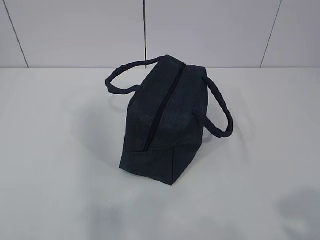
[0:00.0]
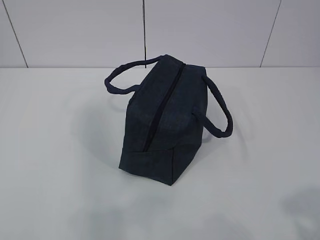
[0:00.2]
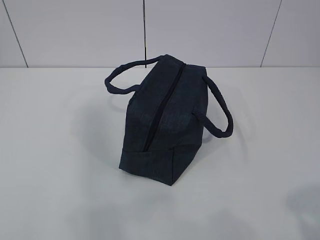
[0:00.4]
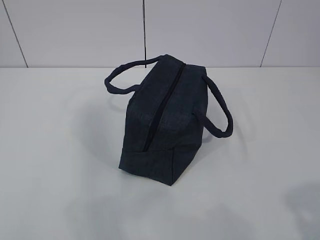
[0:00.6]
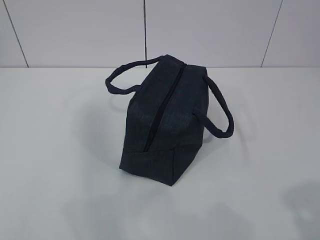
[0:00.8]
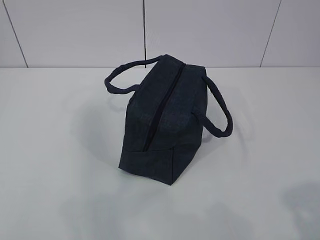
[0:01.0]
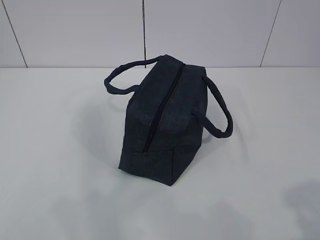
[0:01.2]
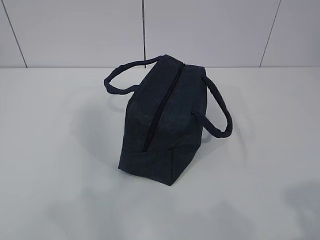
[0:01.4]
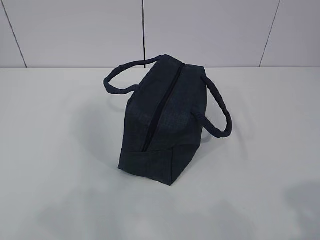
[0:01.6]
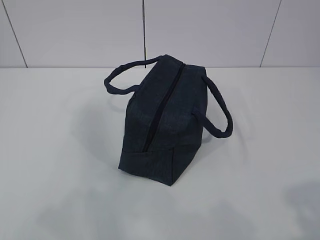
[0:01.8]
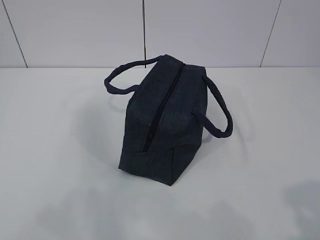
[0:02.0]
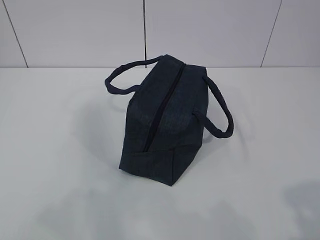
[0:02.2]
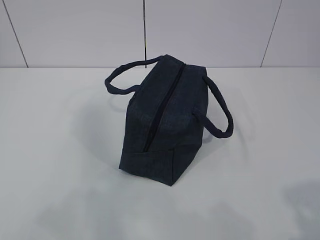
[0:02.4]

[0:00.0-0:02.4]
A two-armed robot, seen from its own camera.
0.0 to 1.2 s: The left gripper moves some 5 cm.

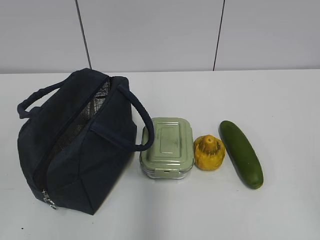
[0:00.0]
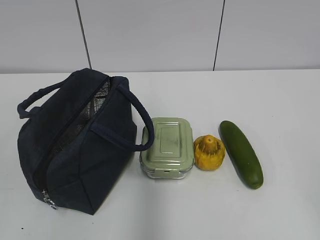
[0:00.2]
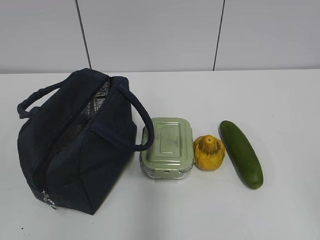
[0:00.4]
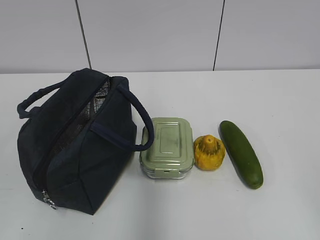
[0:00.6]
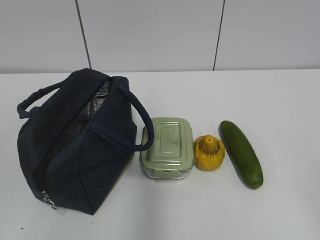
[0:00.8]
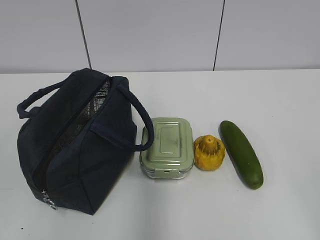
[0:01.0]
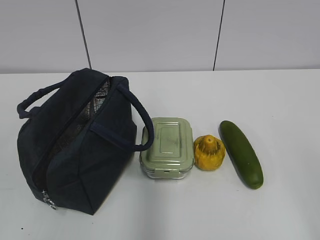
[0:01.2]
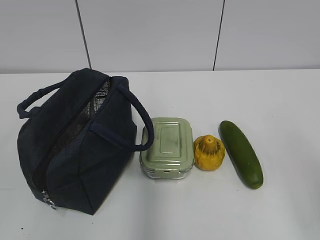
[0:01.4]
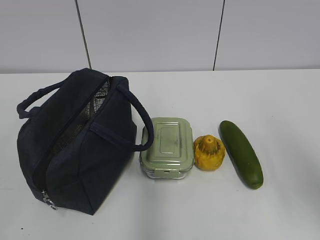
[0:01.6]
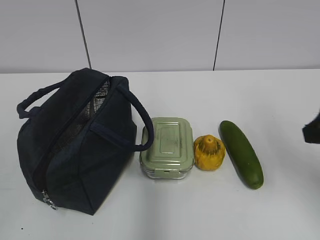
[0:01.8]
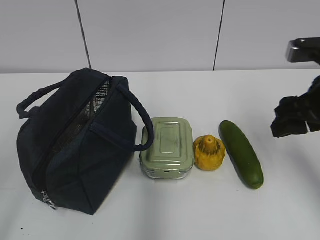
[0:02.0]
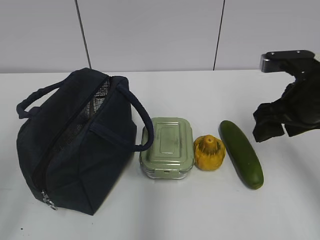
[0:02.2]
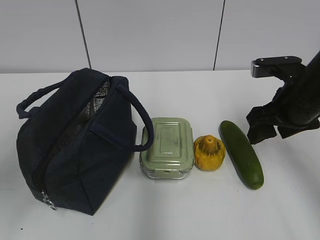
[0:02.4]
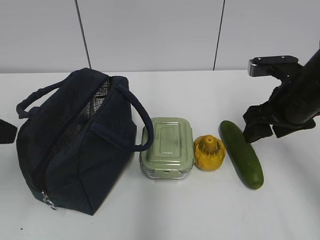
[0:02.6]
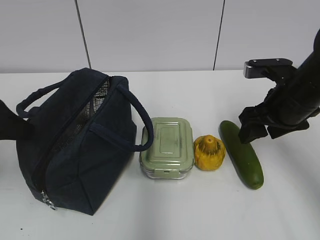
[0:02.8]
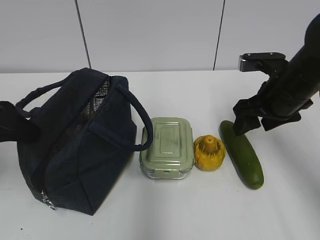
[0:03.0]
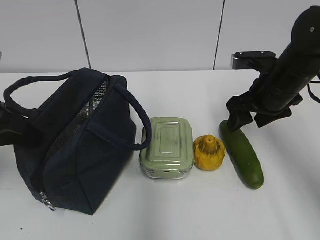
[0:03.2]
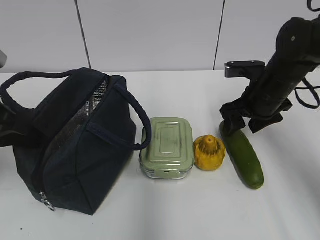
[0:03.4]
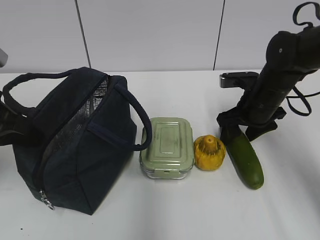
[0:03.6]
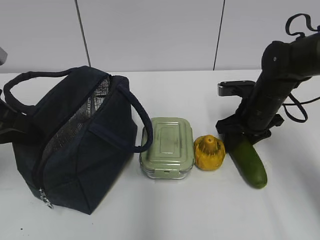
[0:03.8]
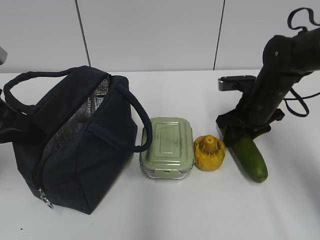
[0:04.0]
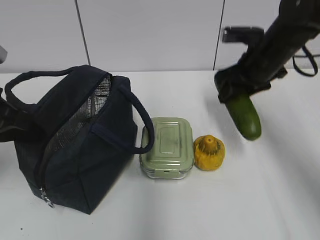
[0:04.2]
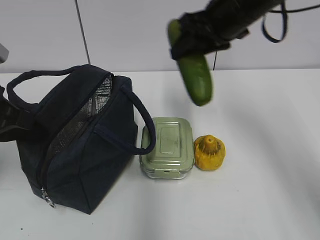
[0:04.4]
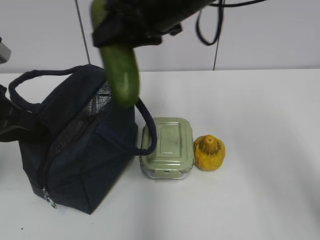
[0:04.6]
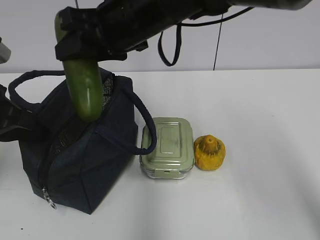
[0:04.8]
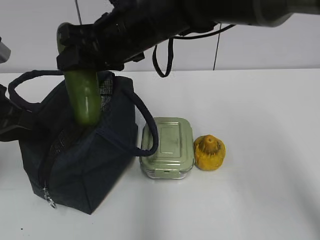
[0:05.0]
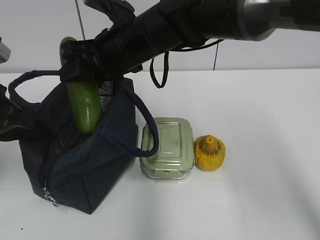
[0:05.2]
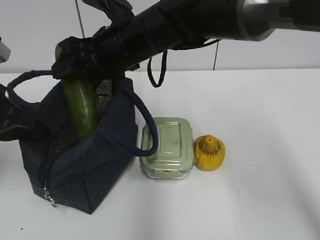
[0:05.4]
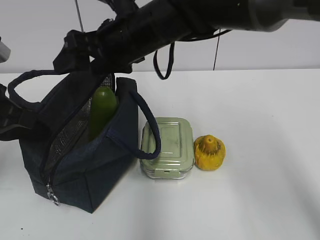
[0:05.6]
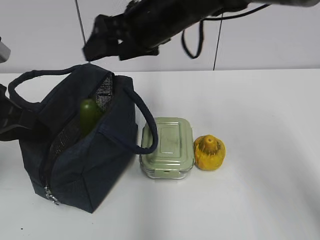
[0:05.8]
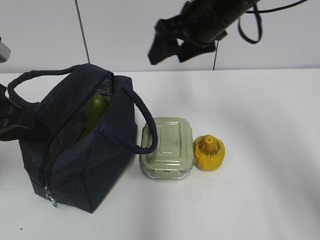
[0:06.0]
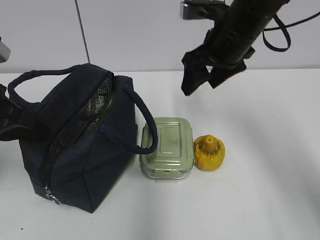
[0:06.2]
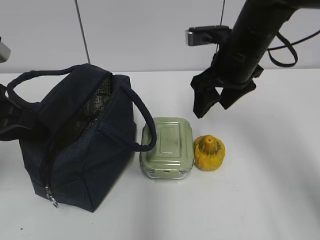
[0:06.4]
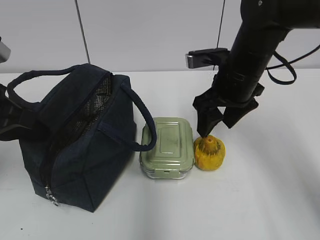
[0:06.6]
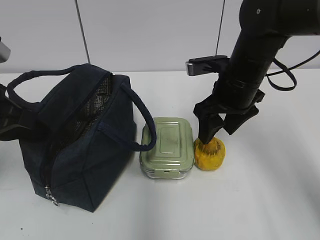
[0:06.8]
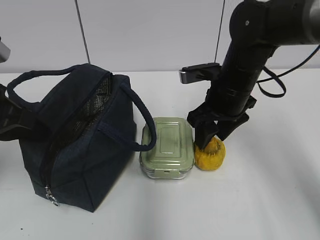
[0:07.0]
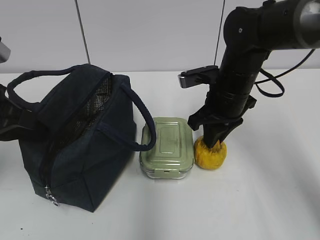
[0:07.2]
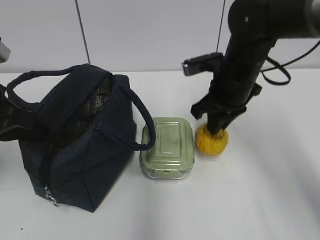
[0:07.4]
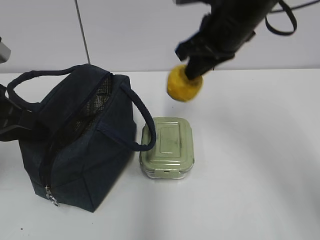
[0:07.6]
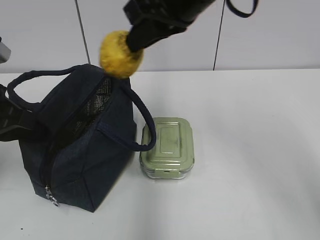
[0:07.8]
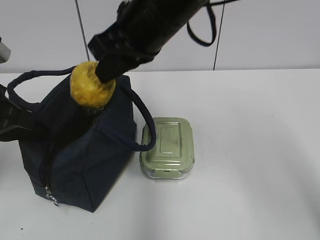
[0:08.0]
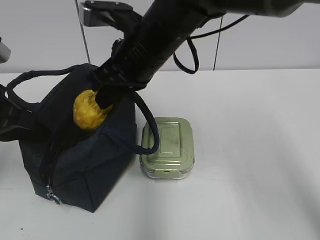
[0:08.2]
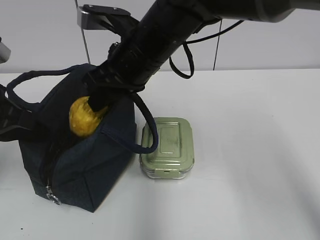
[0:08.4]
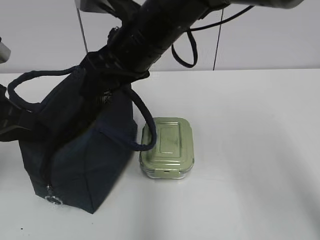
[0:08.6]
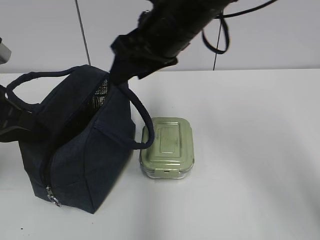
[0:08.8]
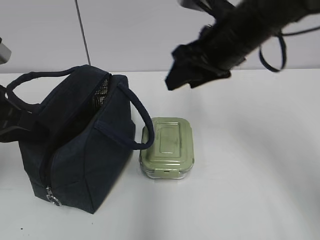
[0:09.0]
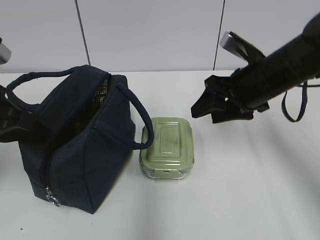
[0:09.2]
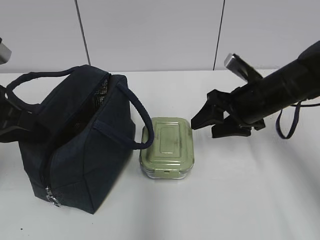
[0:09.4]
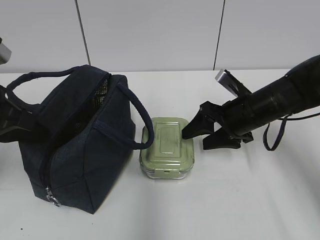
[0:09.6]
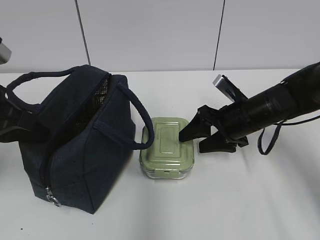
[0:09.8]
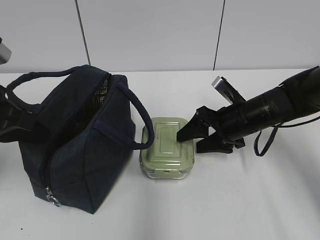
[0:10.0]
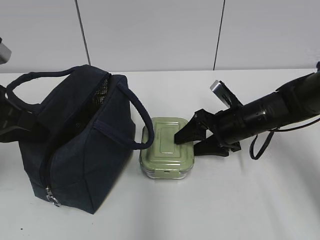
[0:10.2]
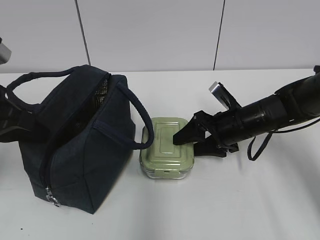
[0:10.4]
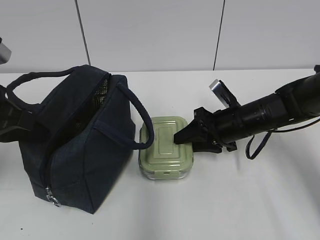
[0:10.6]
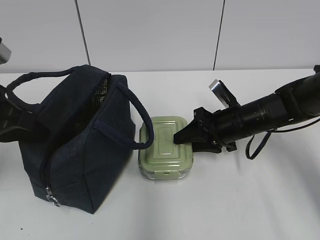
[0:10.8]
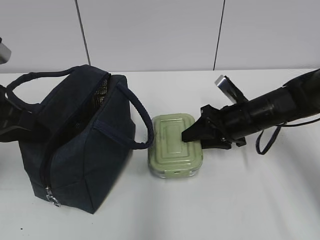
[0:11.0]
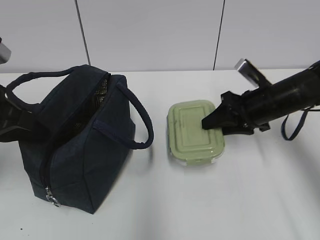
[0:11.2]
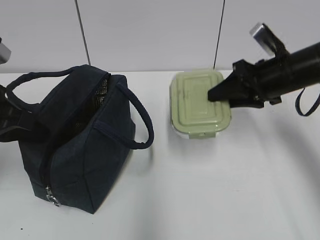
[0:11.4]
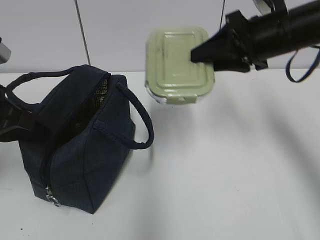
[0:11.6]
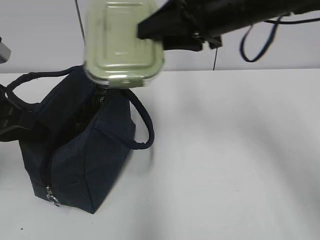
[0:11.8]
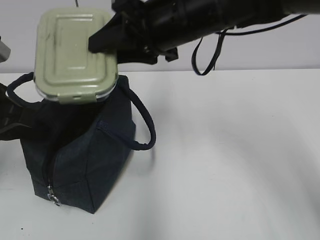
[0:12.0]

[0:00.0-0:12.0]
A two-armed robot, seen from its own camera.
Step, 0.0 to 3.8 s: Grab the cucumber with your right hand.
Step, 5.2 to 5.6 s: Place it into the bag with your right hand.
Step, 5.8 to 7.0 s: Grab the pear with your right hand.
Step, 7.4 to 8.4 s: Place it into the bag with your right hand.
Step, 8.6 to 10.6 s: Grab the lunch box with your right hand.
1.6 to 3.0 s: The left gripper moves forward, about 25 cm, while the right gripper shifts about 20 cm forward and downward.
3.0 to 4.4 s: The right gripper goes some 15 cm upward and to the left, and closes up. The left gripper closes up.
4.4 to 6.0 s: The right gripper moves roughly 15 cm to the left and comes back, and opens.
6.0 to 7.6 s: The right gripper moves roughly 10 cm downward and comes back, and closes up.
7.6 to 9.0 s: The right gripper is displaced downward by some 10 cm, moves roughly 10 cm to the left and comes back, and opens its fingers.
9.0 to 10.4 s: The right gripper is displaced downward by some 15 cm.
10.4 to 12.0 s: The right gripper goes approximately 25 cm upward and to the left, and closes its fingers.

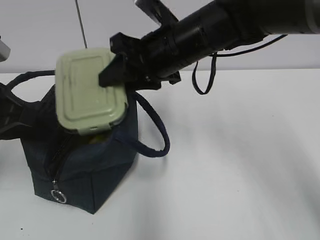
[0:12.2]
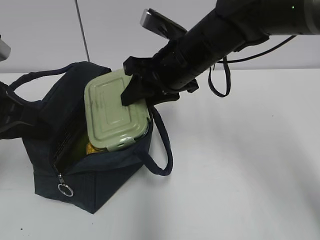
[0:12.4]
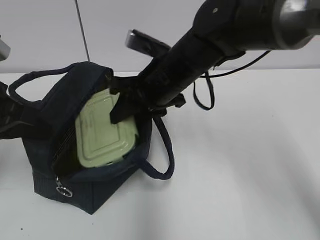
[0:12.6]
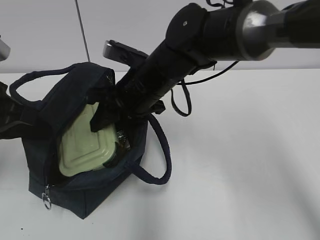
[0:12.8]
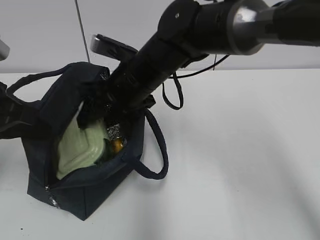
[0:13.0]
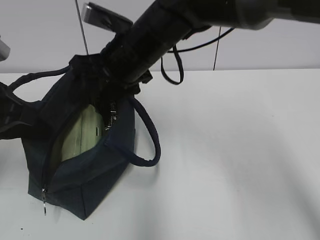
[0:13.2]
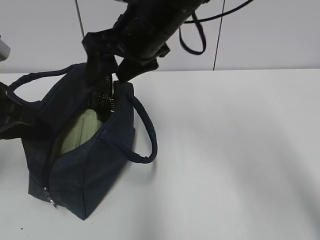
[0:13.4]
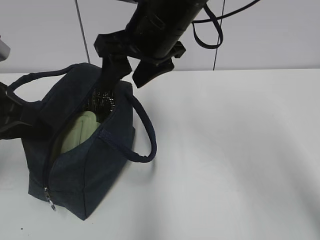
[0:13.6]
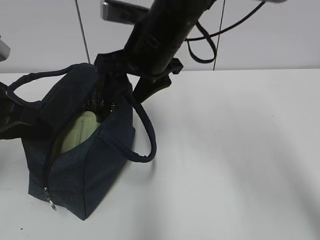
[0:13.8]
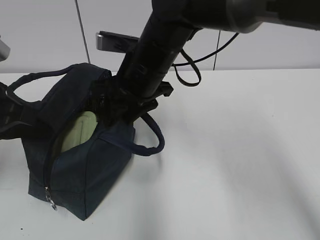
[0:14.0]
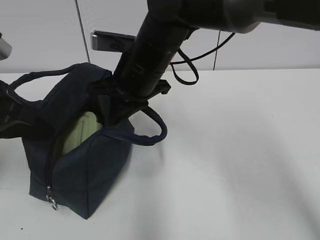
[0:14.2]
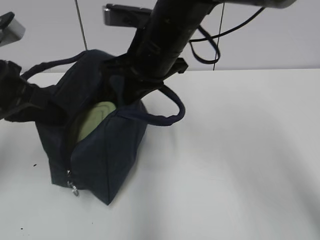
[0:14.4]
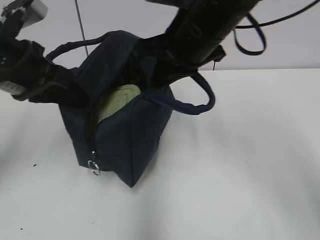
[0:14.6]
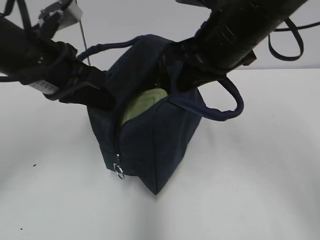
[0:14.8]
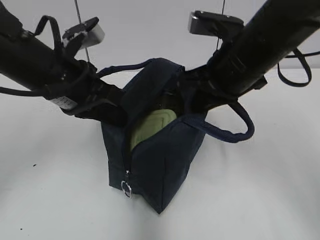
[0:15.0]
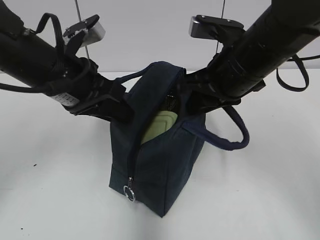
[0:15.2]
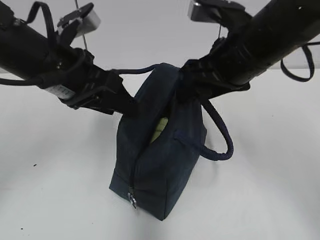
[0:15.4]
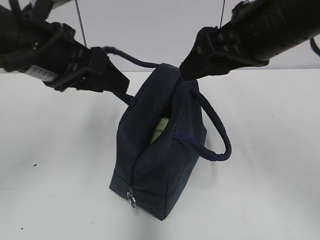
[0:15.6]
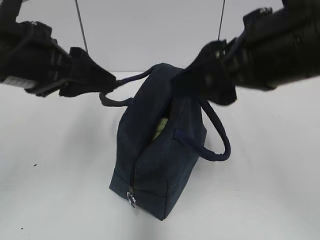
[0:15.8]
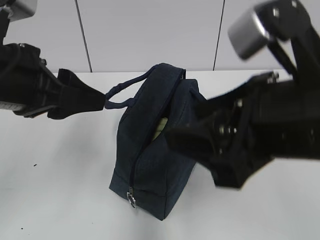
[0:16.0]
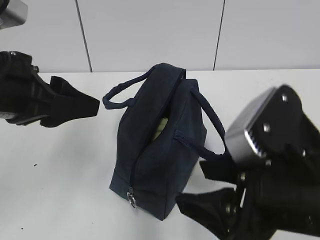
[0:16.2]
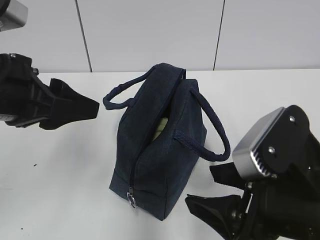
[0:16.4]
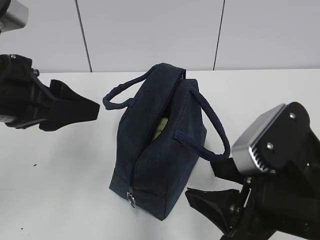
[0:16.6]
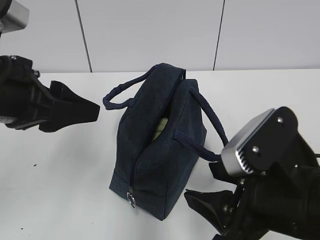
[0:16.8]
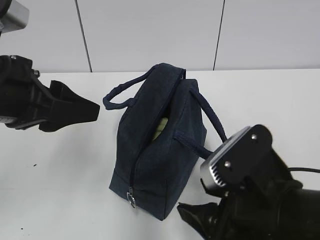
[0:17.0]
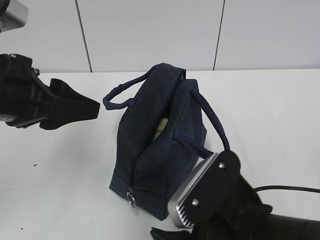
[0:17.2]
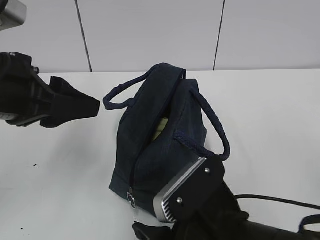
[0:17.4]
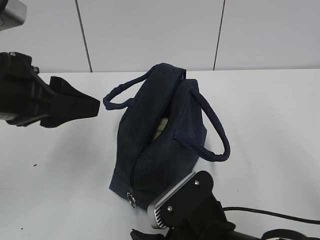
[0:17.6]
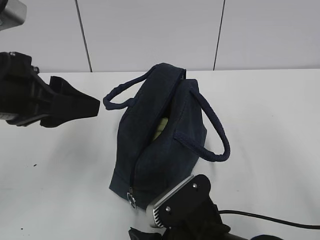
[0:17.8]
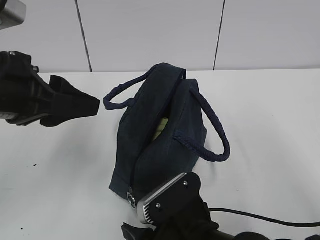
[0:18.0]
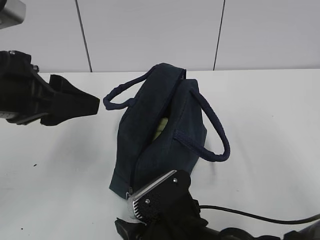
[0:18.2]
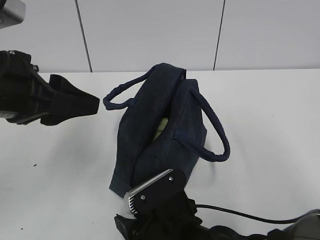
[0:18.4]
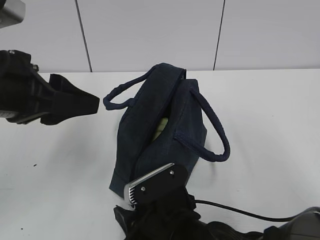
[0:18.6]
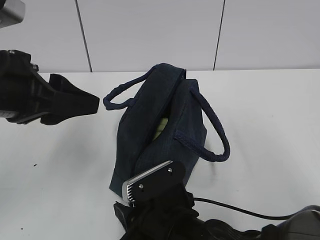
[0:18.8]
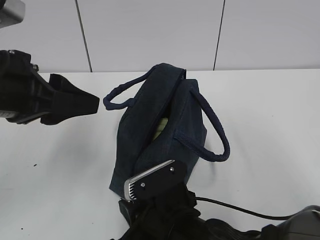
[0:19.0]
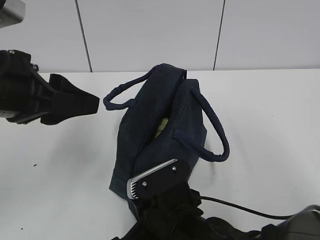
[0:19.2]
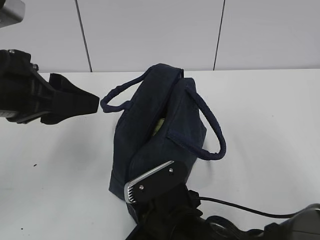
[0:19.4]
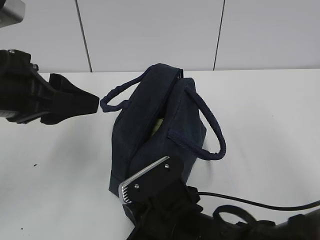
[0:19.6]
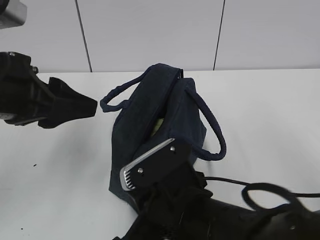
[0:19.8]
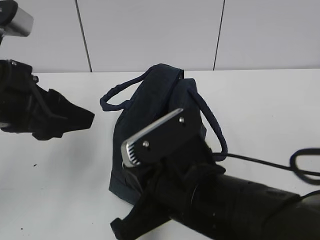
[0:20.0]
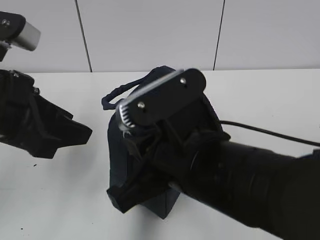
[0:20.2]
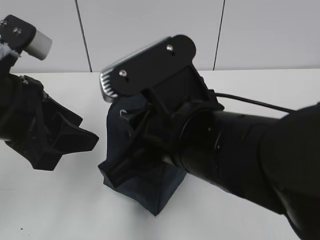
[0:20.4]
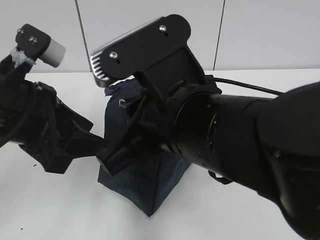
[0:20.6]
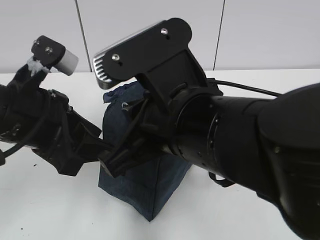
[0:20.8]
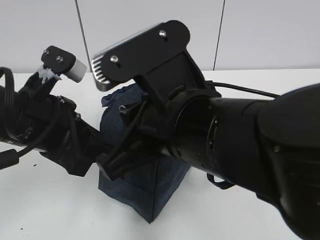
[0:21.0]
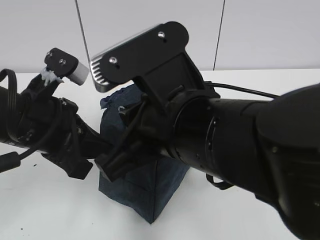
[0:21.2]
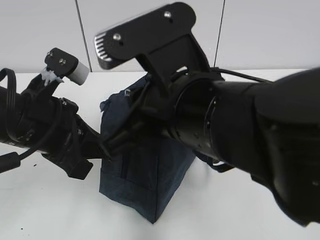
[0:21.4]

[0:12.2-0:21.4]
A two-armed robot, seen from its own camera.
Step, 13.2 to 14.0 s: Grab the lunch bag with your right hand.
Step, 14.2 to 15.2 s: Move the lunch bag to the right.
12.2 to 13.8 s: The right gripper goes up and down, about 10 cm each way, reversing 2 times.
13.8 to 15.2 s: The grippers both shift to the right by about 10 cm. The left gripper opens up. Meanwhile the right gripper closes, then reopens.
15.2 to 16.8 s: The left gripper goes some 10 cm backward; the right gripper shifts some 15 cm backward.
16.8 to 18.4 s: The right gripper heads downward and to the left, covering about 15 cm.
18.4 to 19.8 s: The right gripper shifts about 5 cm upward, and closes up.
19.8 to 21.4 s: The left gripper heads downward, covering approximately 5 cm, and closes its fingers, while the right gripper moves upward, about 15 cm.
